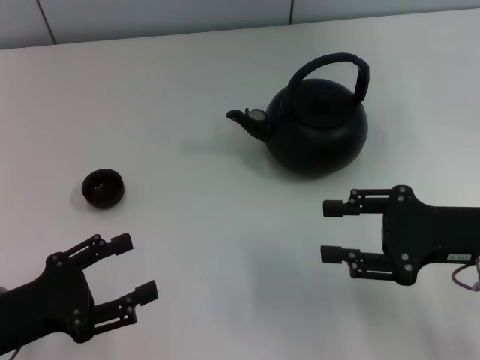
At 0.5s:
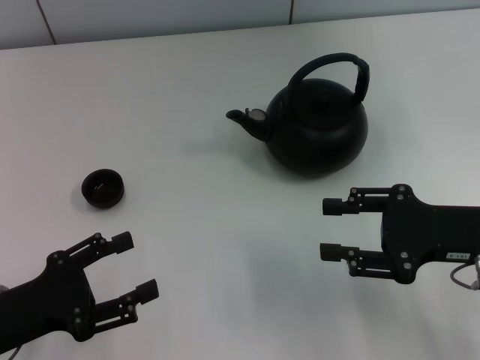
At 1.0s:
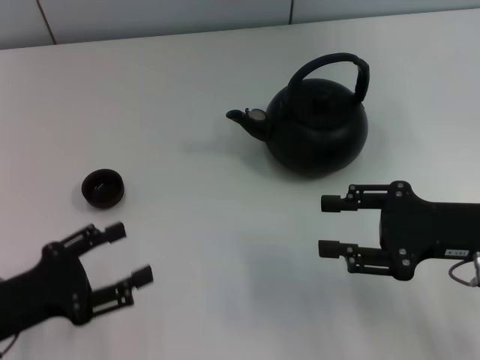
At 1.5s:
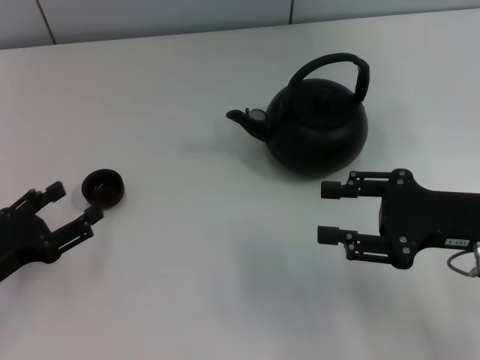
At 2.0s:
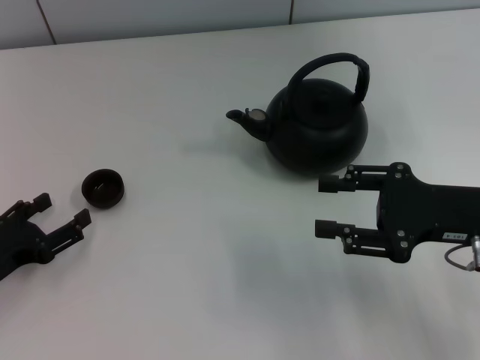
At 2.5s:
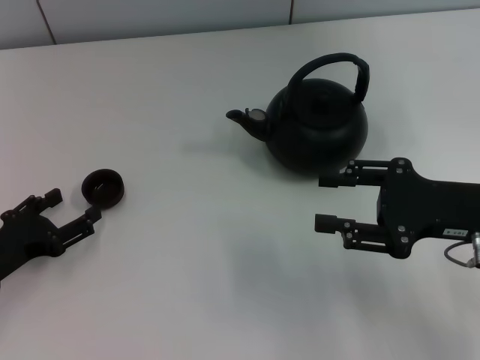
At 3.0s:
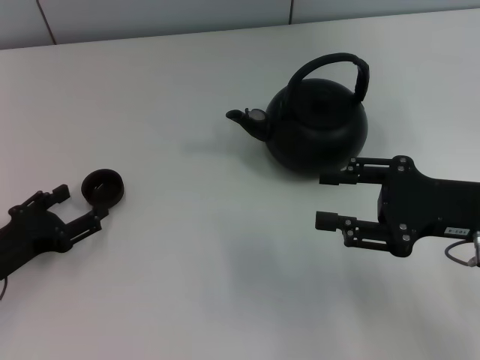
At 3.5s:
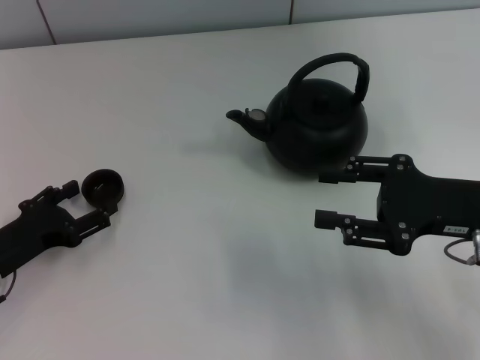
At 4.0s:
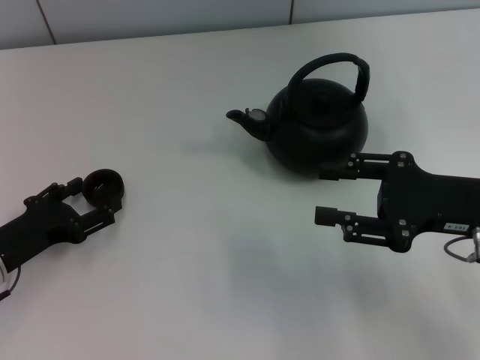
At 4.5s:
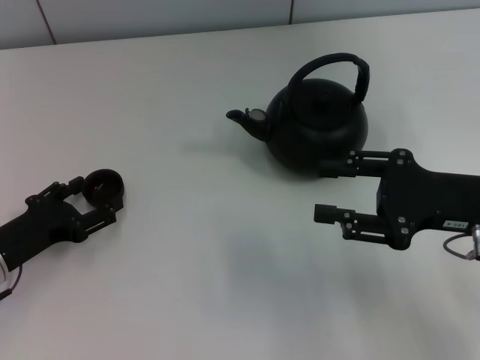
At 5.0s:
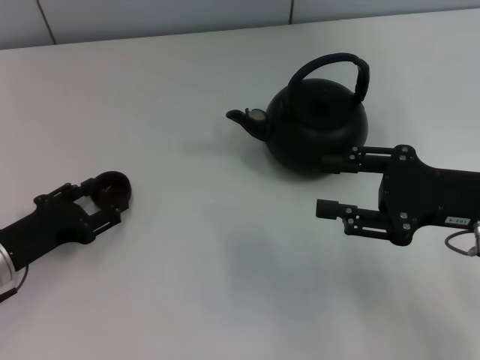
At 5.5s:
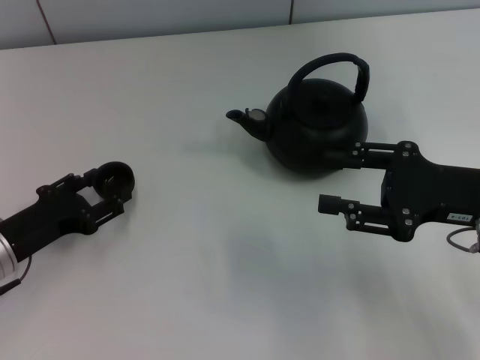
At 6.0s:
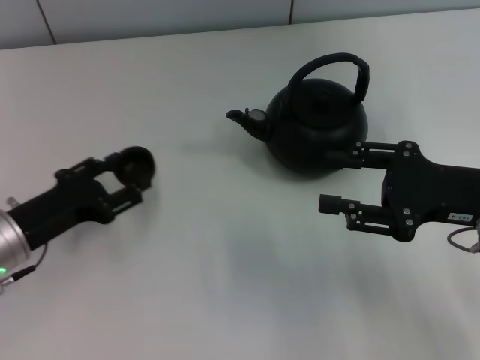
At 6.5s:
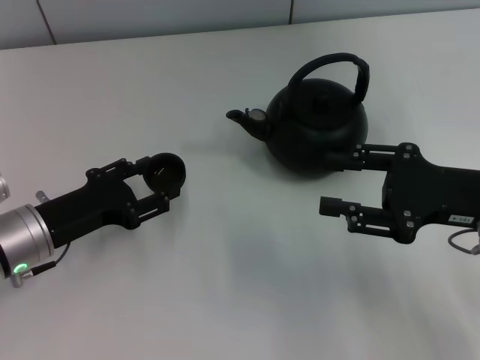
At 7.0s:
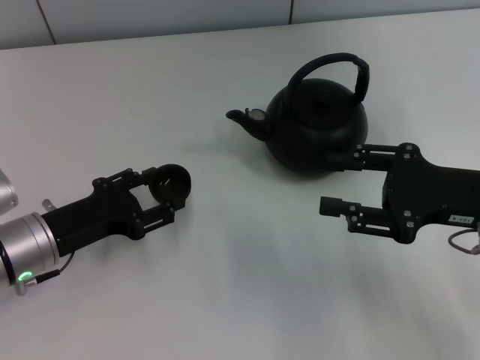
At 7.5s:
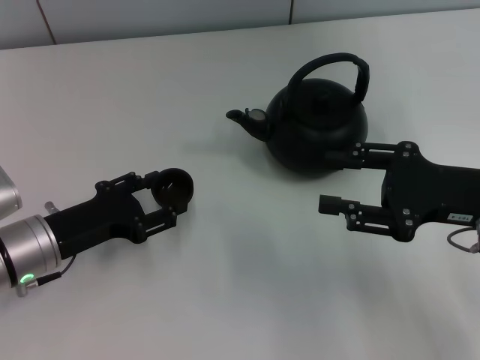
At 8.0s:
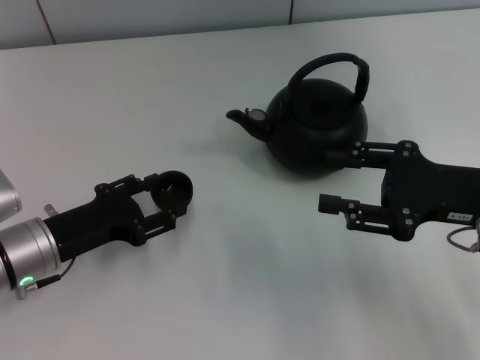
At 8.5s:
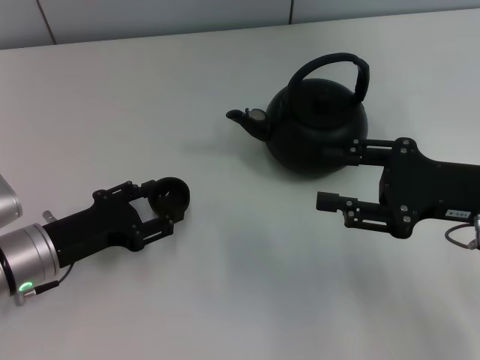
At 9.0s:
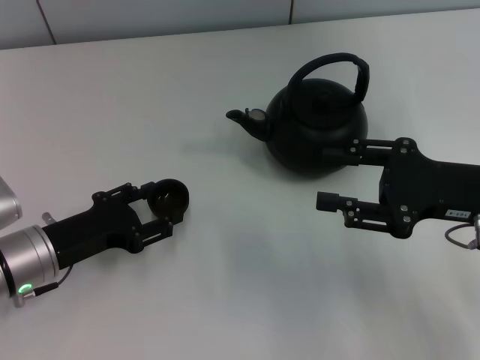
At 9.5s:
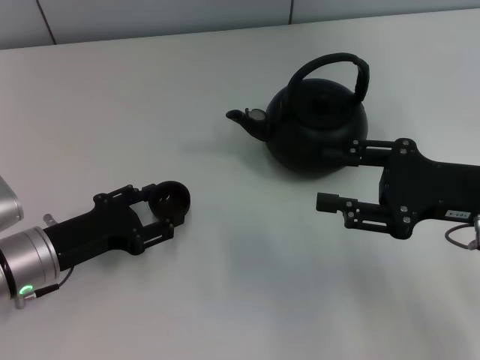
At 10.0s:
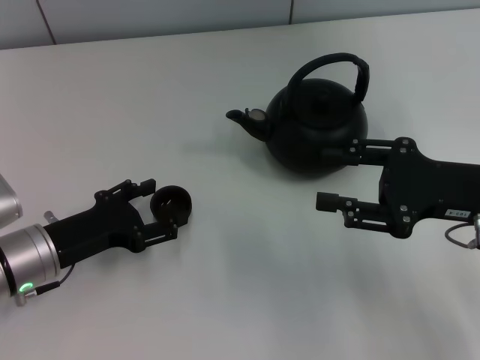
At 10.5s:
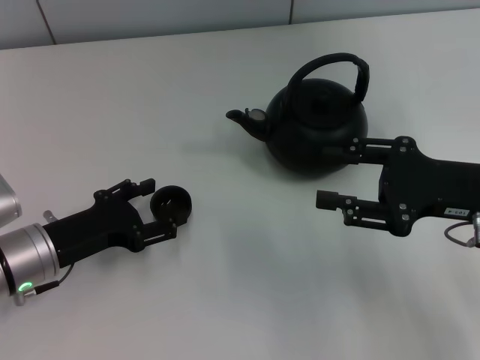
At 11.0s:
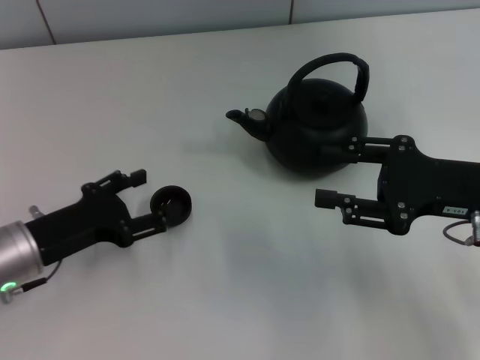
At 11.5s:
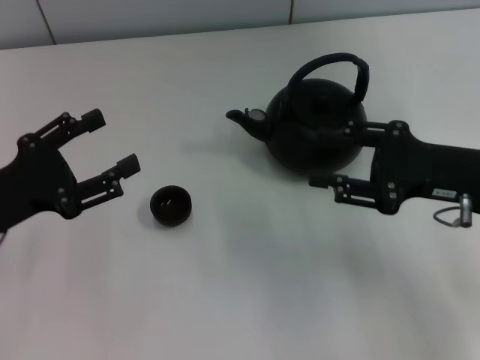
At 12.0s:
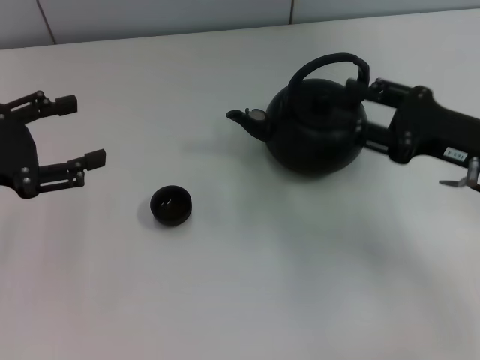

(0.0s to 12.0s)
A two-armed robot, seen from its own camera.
Task of the whole recording: Grasp the handle of the teapot with one hand and pour tea into the teacup.
Step, 0.0s - 7.0s: Pick up the teacup with the left gripper.
Step, 7.5s - 11.0s: Place the teacup in the center of view with the left gripper.
0.0s - 2.0s: The left gripper moves approximately 5 cm.
2.0s - 4.0s: The grippers make only small movements.
4.0s - 6.0s: The left gripper closes.
6.0s - 8.0s: The grippers stay close to where they were, moving slightly.
8.0s - 10.0s: Neither gripper changes place.
10.0s - 12.0s: The left gripper goes approximately 15 cm upward and to the left, and opens its fingers.

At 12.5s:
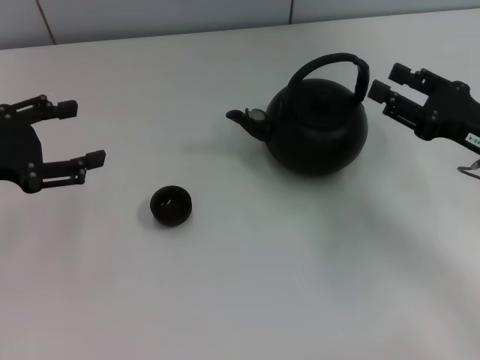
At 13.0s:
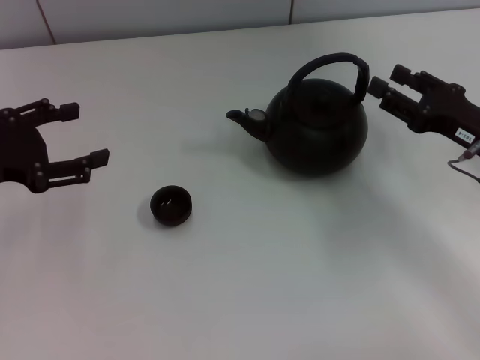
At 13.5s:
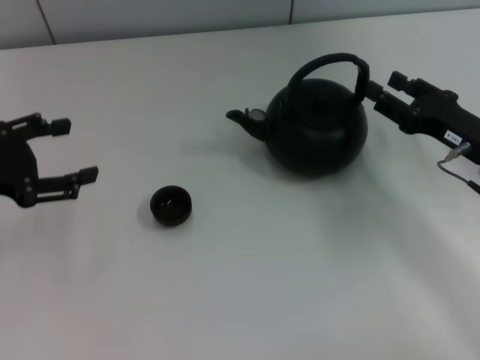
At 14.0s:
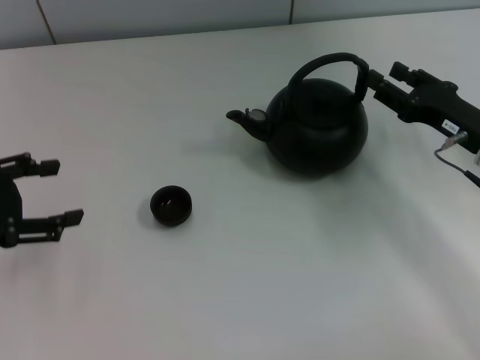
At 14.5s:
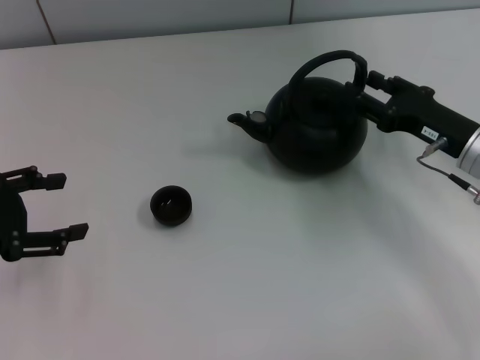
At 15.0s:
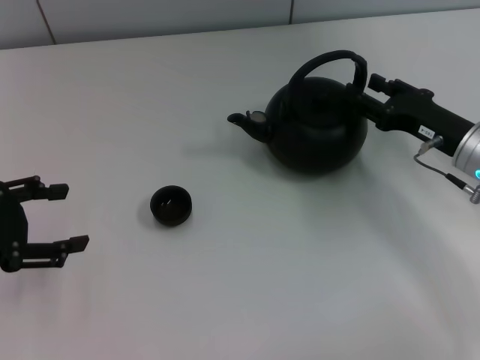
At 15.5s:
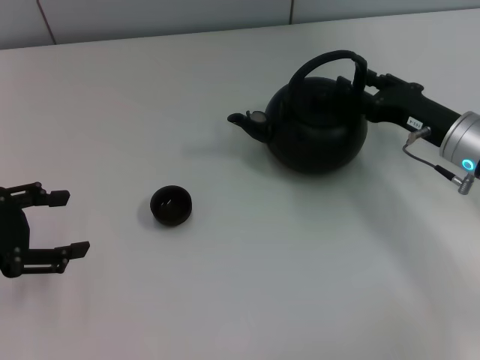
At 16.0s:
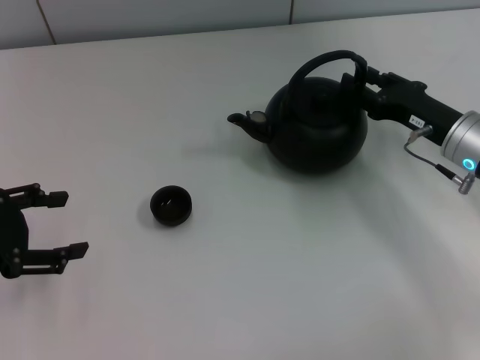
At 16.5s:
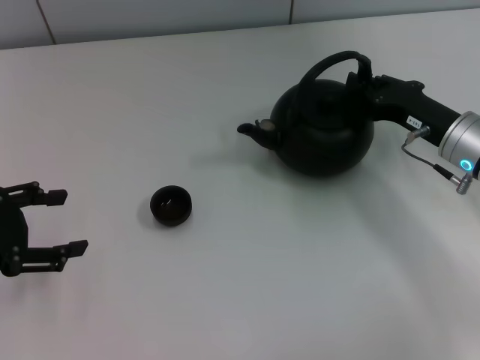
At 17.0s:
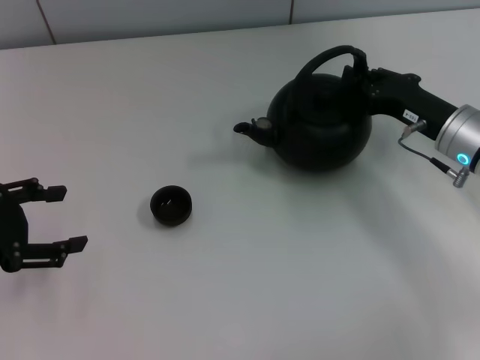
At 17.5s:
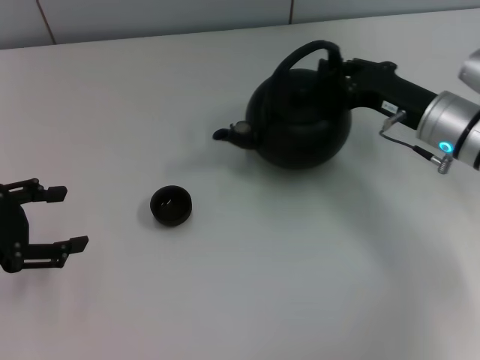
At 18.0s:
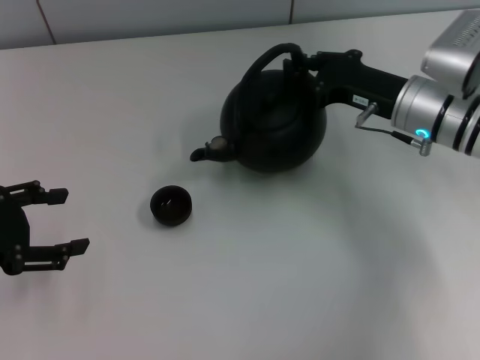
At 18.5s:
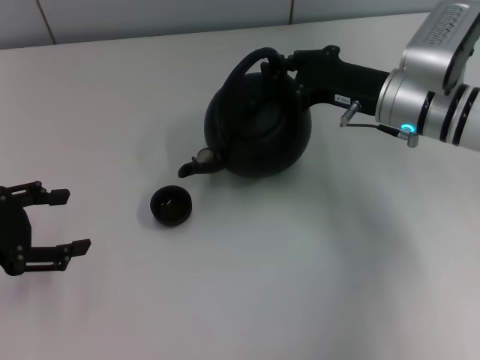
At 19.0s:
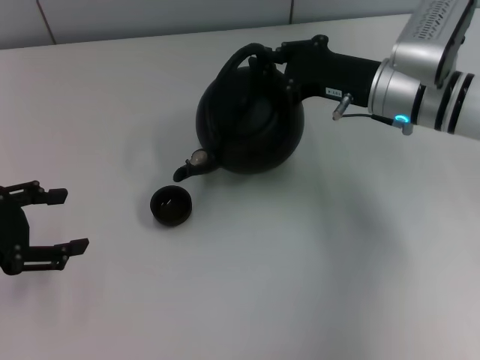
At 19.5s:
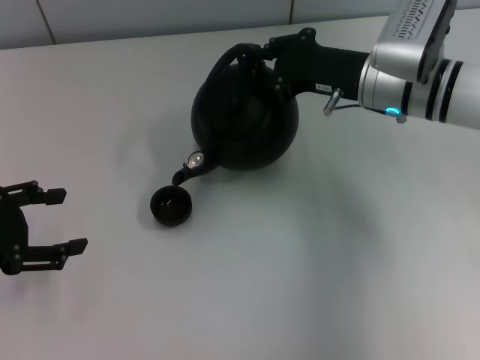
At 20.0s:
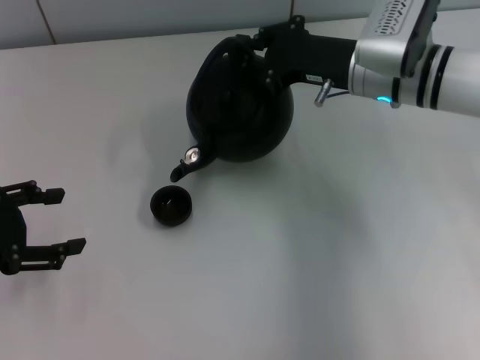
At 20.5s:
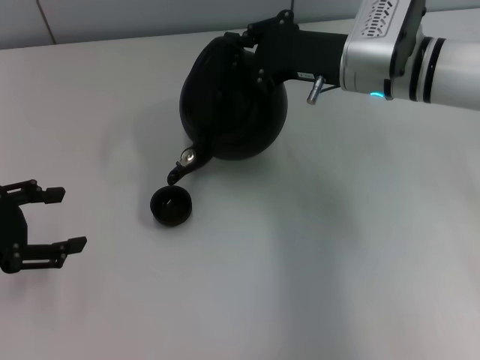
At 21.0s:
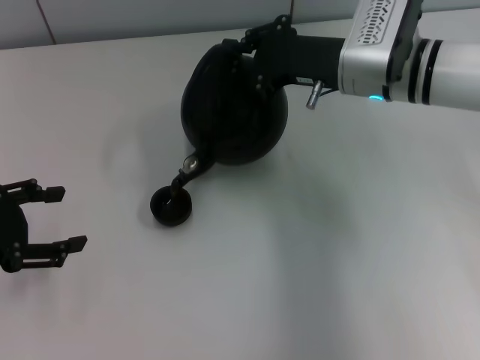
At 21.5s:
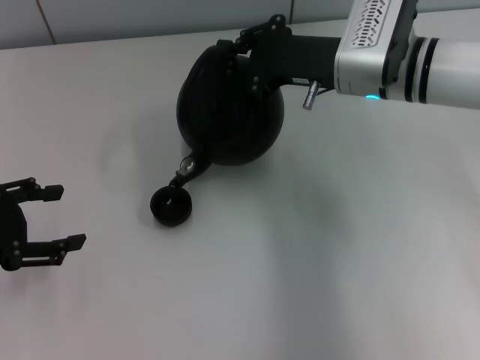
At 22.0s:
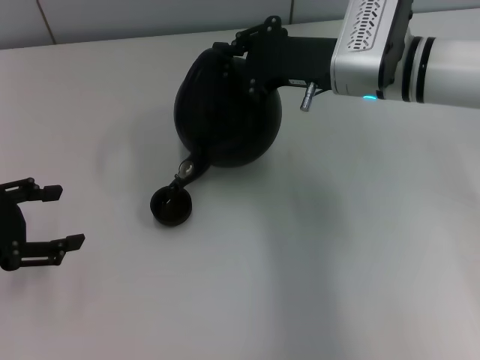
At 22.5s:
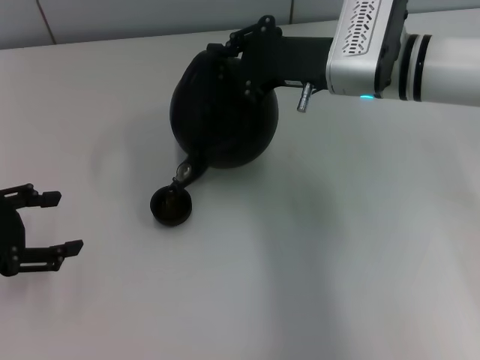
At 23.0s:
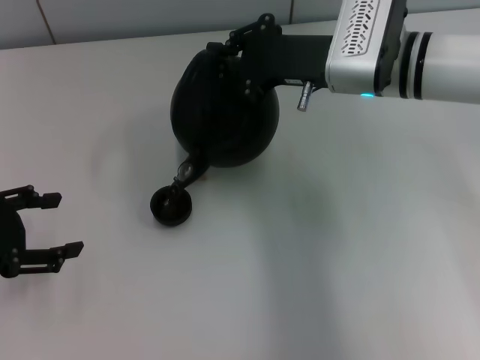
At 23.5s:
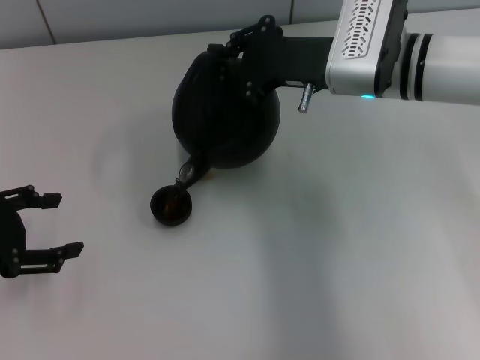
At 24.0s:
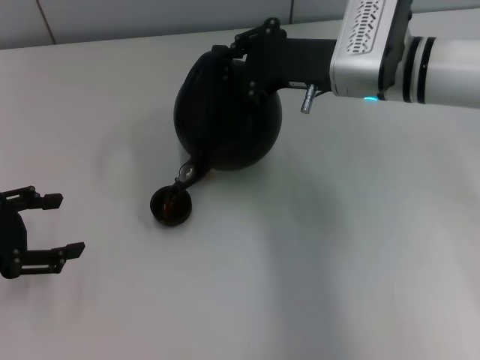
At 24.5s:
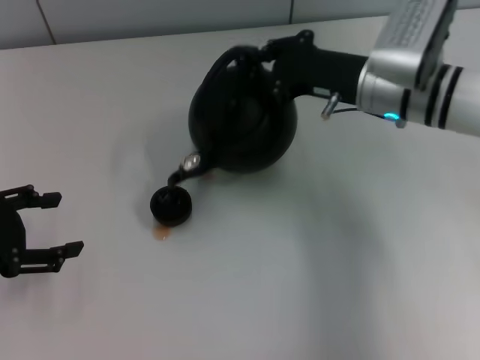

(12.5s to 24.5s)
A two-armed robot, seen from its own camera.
Task of the whole recording: Grasp the handle of the teapot with one hand and pour tea into the teacup.
Step, 12.5s - 17.0s: Pick up the teapot with the right gripper.
12.5s - 14.5s: The grippers stay close to where they were, moving slightly.
14.5s - 16.5s: The right gripper closes its fingers.
16.5s - 18.5s: The right gripper shifts roughly 5 cm to the left.
18.5s - 20.5s: The right gripper ends up roughly 5 cm from where it was.
20.5s - 24.5s: The grippers make only small movements.

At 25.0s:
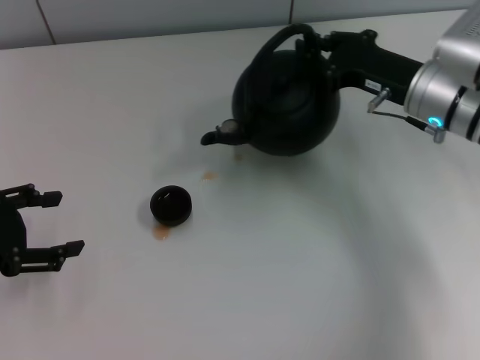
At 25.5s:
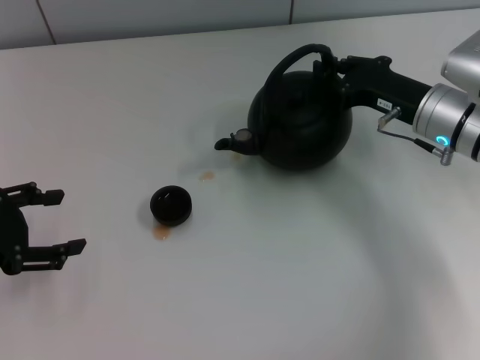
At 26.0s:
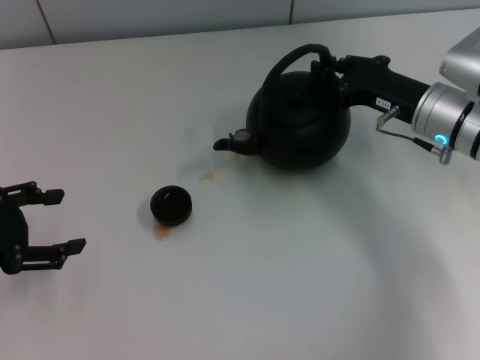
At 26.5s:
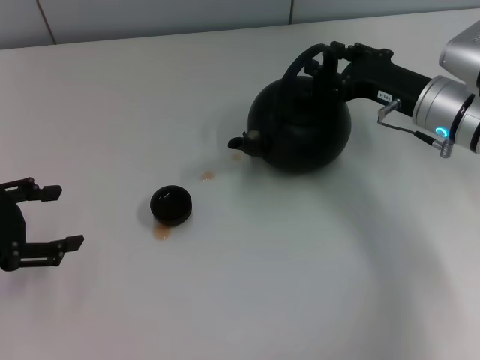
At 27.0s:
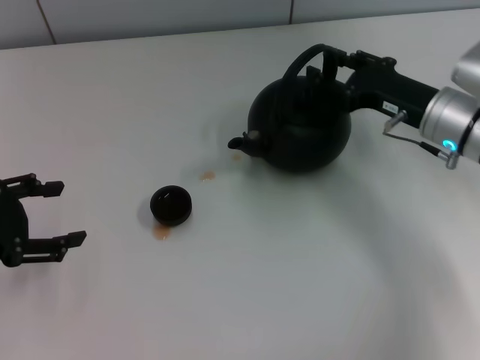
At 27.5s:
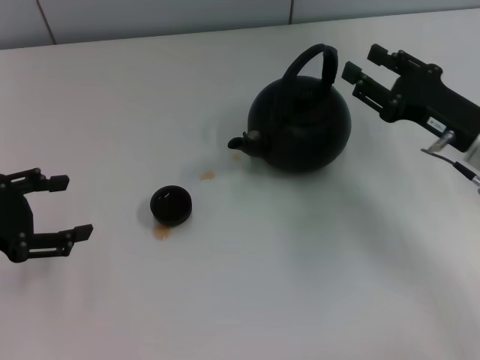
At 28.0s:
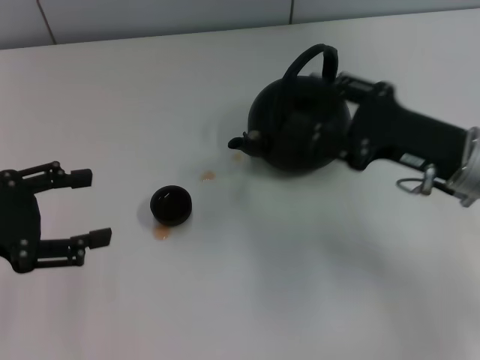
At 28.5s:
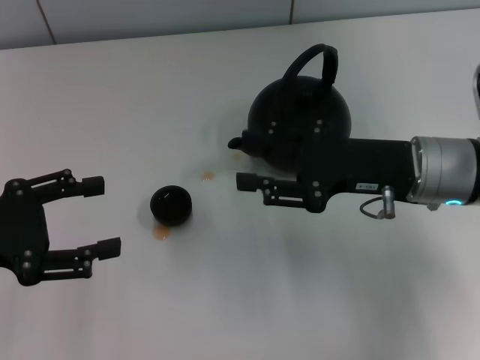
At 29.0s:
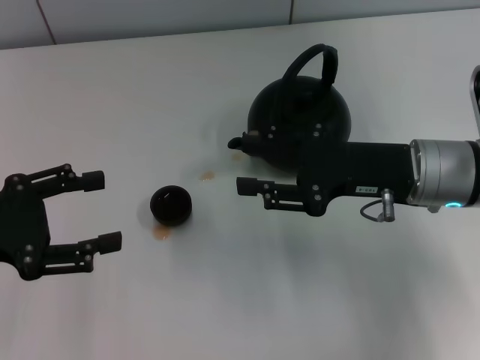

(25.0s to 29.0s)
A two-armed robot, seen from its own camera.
Task of the whole recording: Grasp the handle of the teapot with one hand and pour tea into the teacup.
Step, 25.0s - 28.0s: Put down the teapot with the right gripper.
25.0s - 27.0s: The right gripper opens.
27.0s - 29.0s: The right gripper moves backward, roughly 5 cm.
